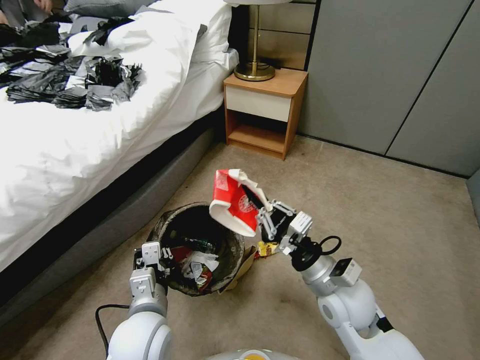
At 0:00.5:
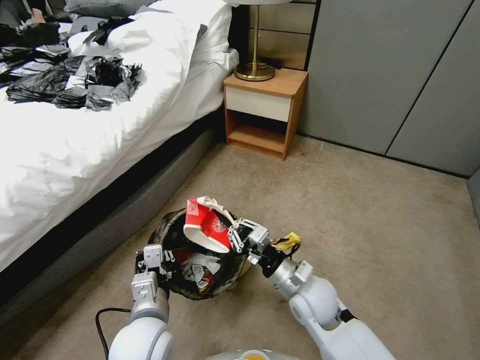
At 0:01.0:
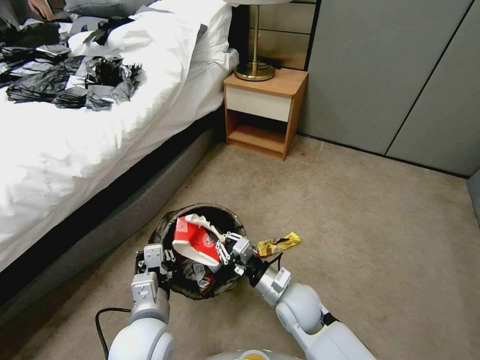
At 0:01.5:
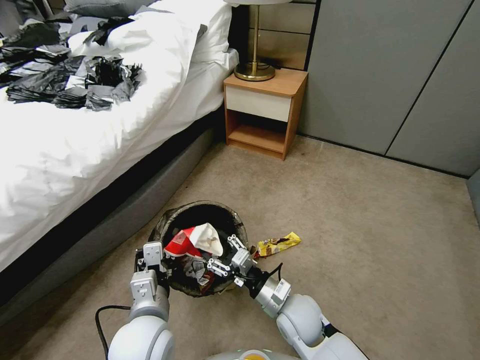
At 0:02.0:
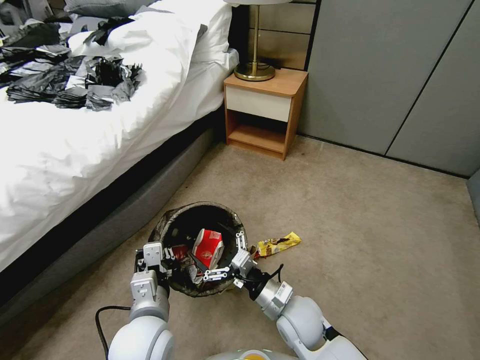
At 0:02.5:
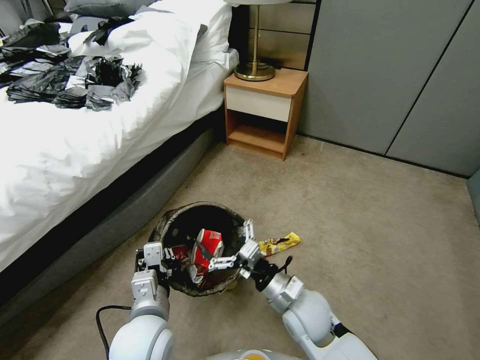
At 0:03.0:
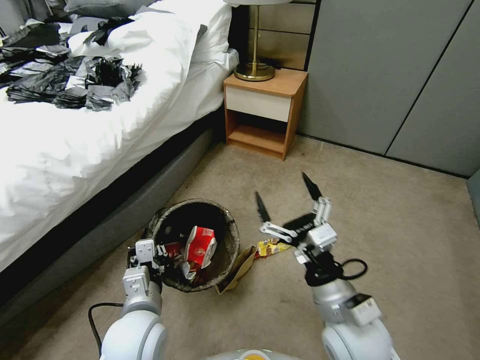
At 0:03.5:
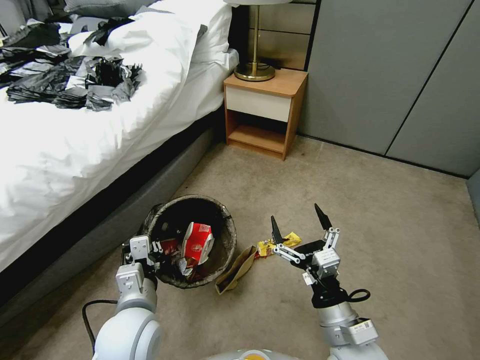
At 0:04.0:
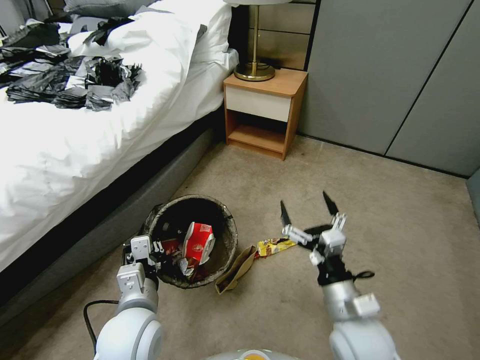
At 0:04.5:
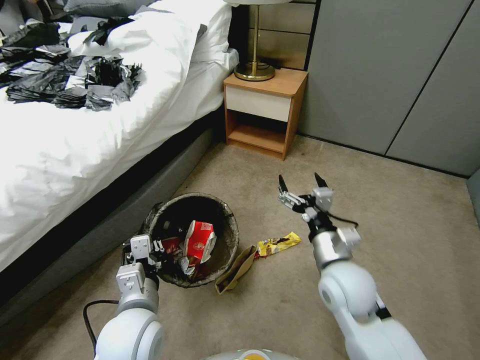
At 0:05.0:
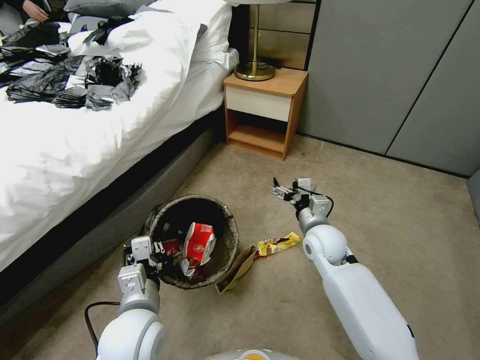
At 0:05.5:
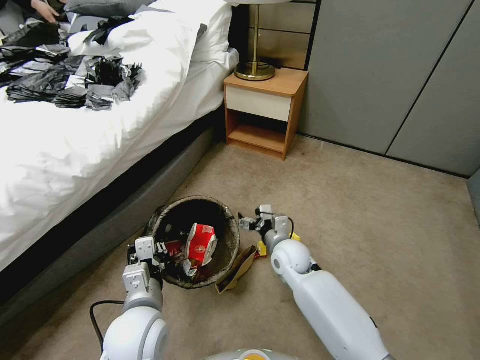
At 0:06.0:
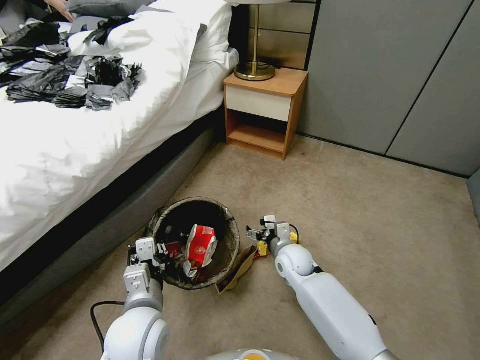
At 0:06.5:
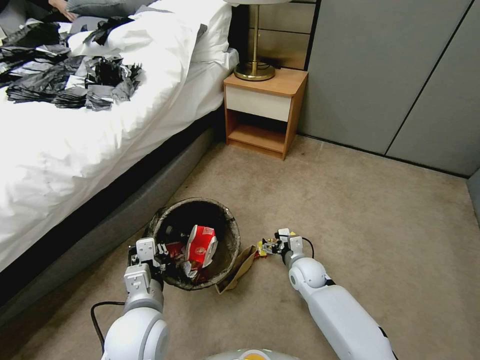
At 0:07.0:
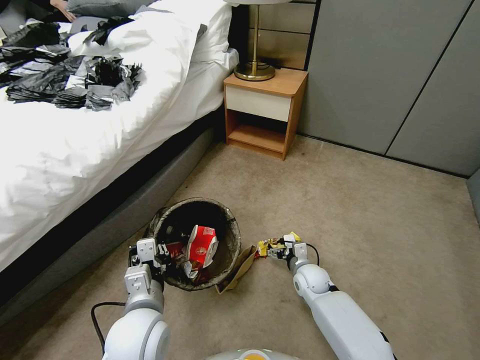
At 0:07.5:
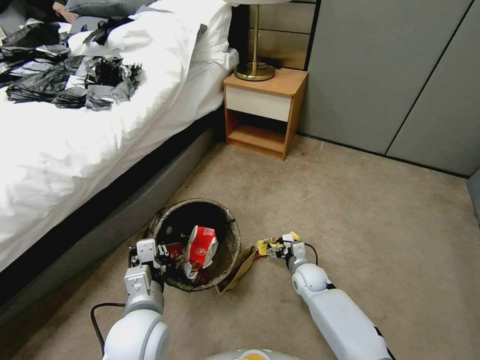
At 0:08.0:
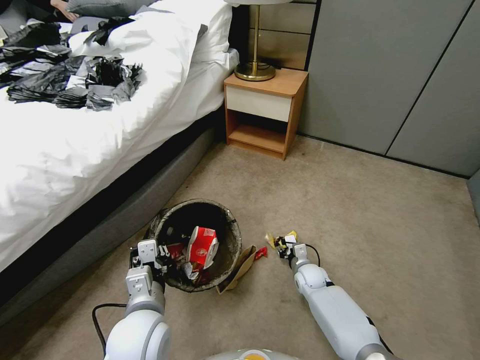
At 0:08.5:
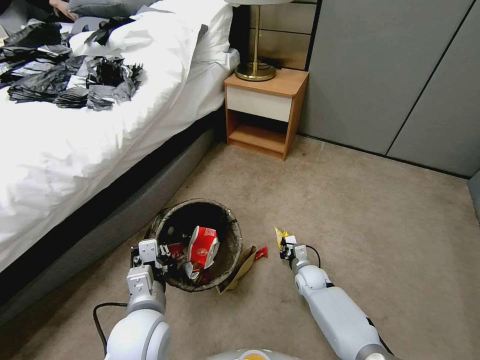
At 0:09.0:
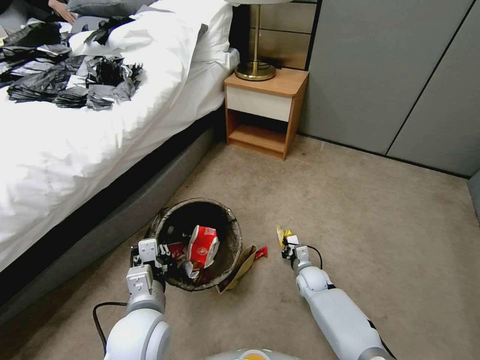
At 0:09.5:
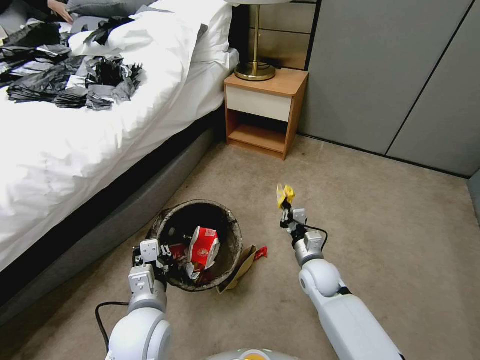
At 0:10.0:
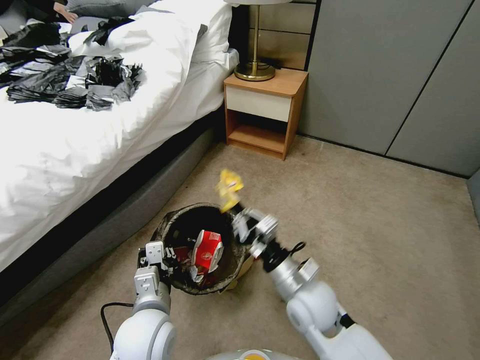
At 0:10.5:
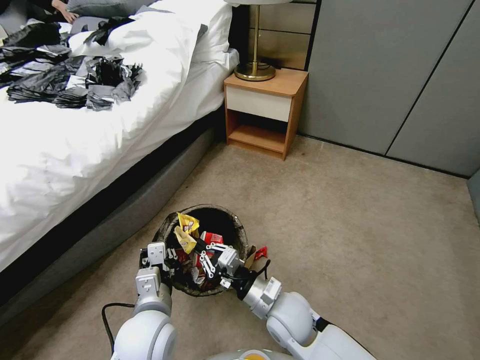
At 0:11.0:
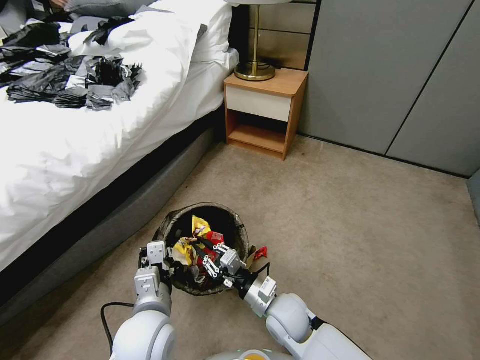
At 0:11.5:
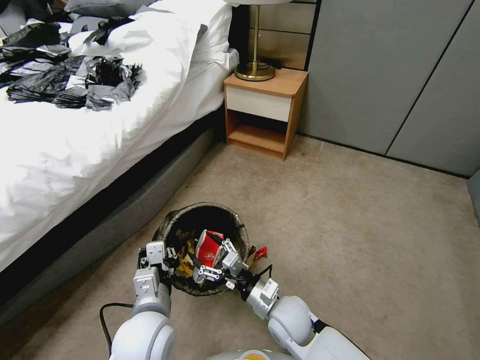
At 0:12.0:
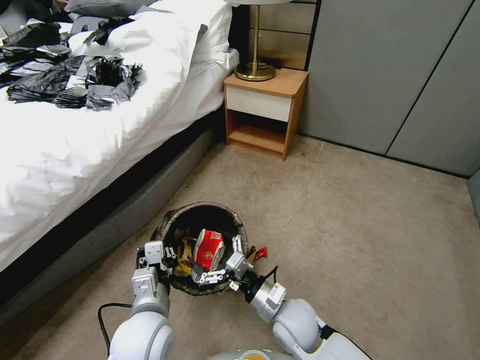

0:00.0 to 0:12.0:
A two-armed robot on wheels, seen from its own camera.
Task of the whole recording: Pick up the trash bin, then pick up the garbage from the floor and place it into the trash bin.
0:00.0 to 0:02.0: The right gripper is displaced downward and to the left by about 15 cm, and opens.
0:02.0 to 0:04.0: The right gripper travels upward, to the right and backward by about 15 cm.
0:04.0 to 0:06.0: The right gripper heads forward and downward, covering approximately 25 cm.
0:06.0 to 0:08.0: The right gripper travels downward and to the right by approximately 15 cm, and closes.
0:08.0 to 0:10.0: The right gripper moves upward and backward, roughly 25 cm, and closes up.
0:10.0 to 0:12.0: The right gripper is displaced downward by about 10 cm, and opens.

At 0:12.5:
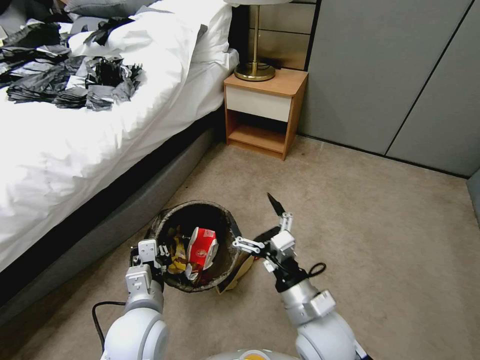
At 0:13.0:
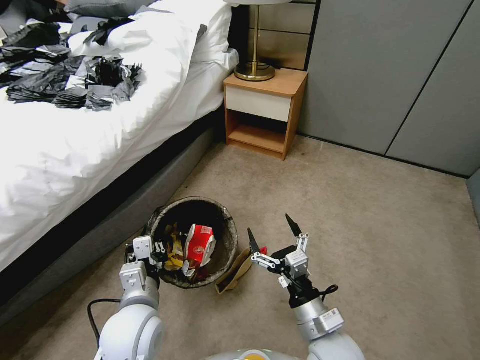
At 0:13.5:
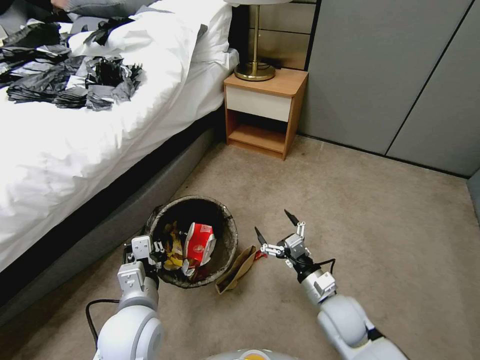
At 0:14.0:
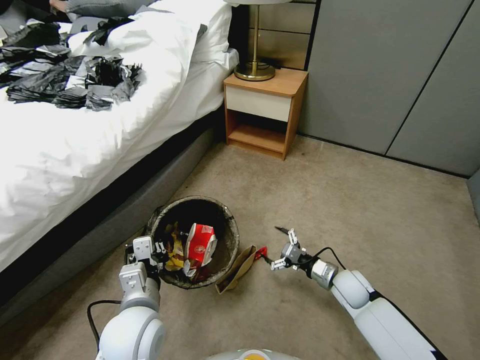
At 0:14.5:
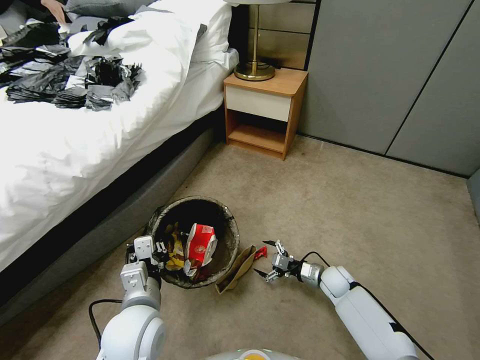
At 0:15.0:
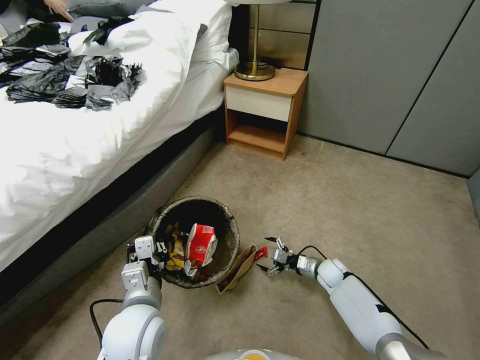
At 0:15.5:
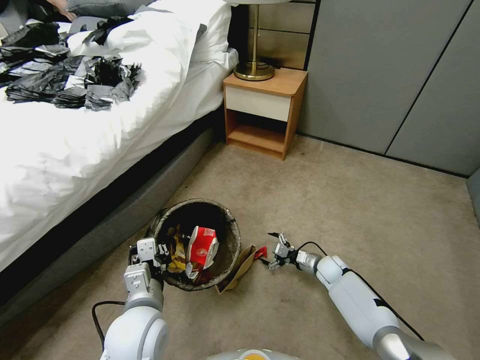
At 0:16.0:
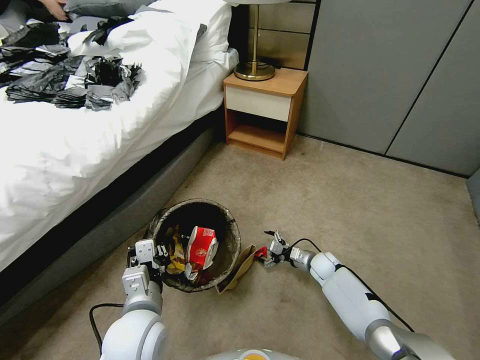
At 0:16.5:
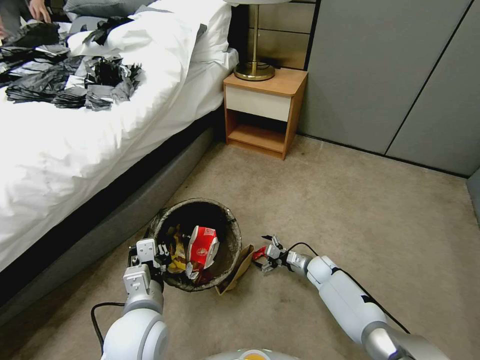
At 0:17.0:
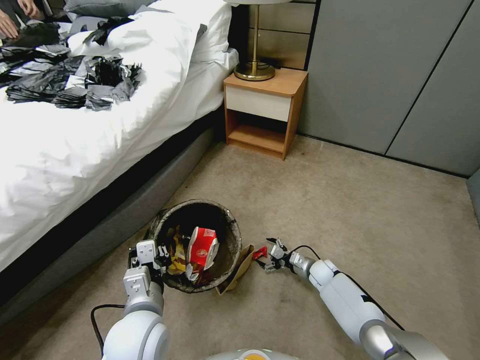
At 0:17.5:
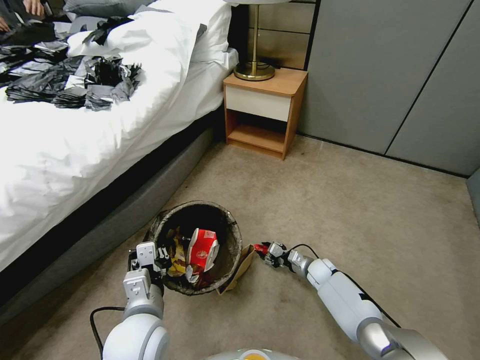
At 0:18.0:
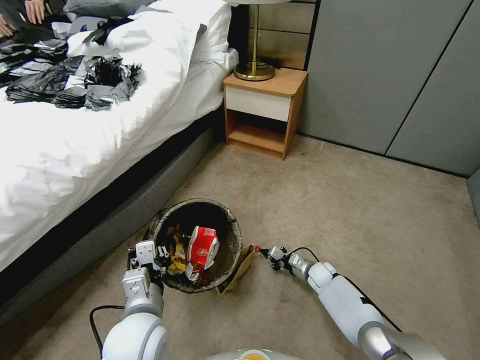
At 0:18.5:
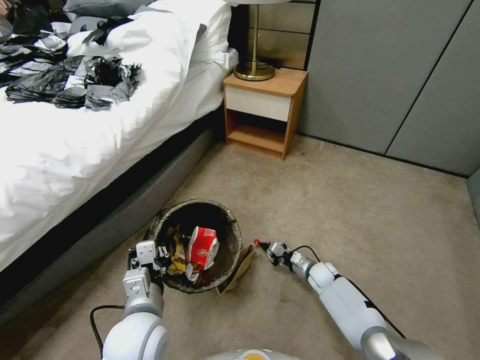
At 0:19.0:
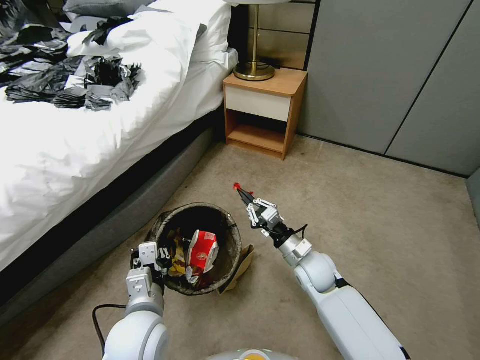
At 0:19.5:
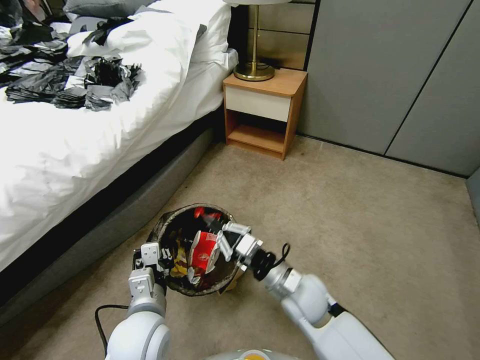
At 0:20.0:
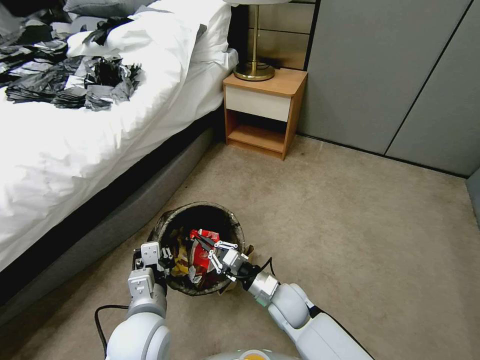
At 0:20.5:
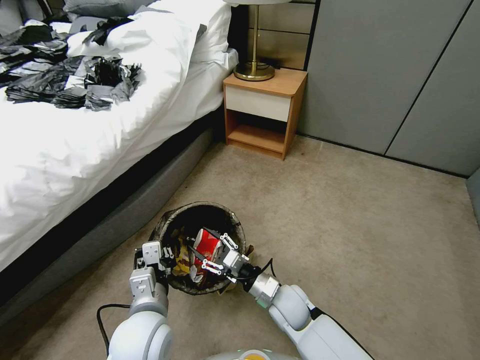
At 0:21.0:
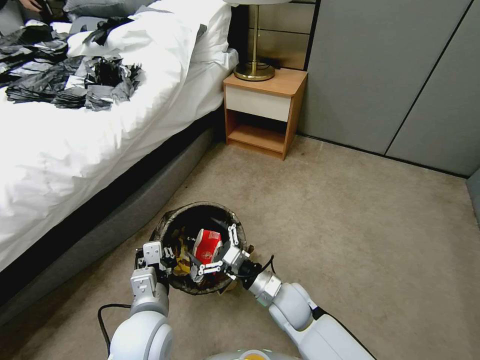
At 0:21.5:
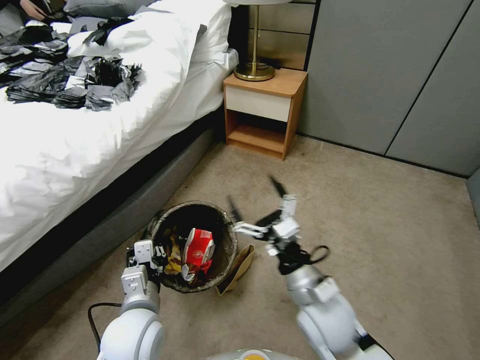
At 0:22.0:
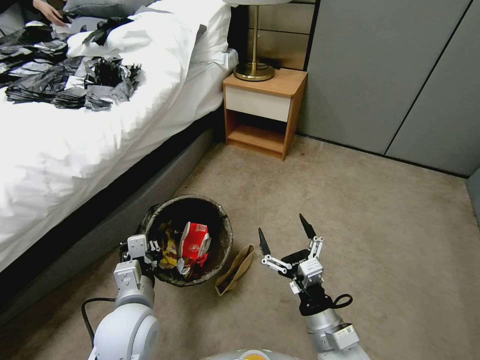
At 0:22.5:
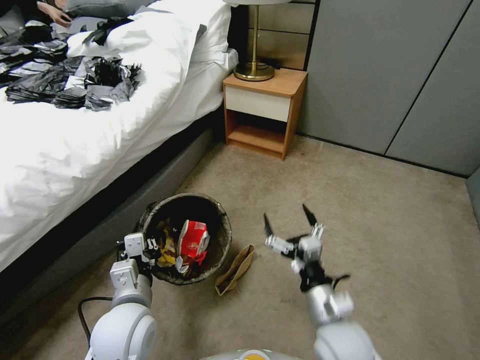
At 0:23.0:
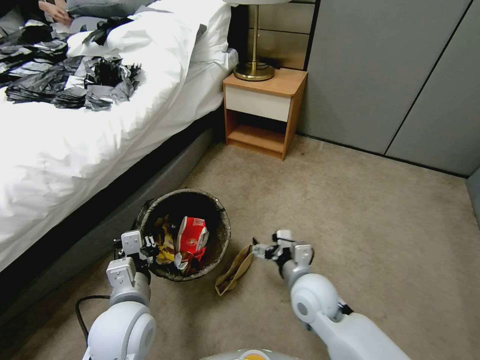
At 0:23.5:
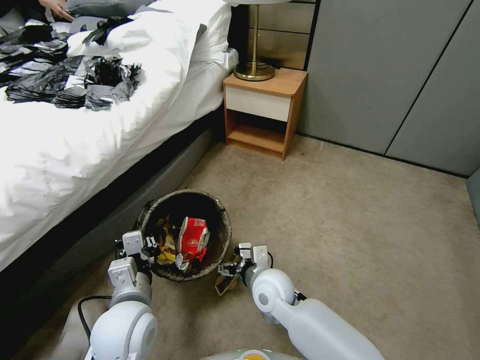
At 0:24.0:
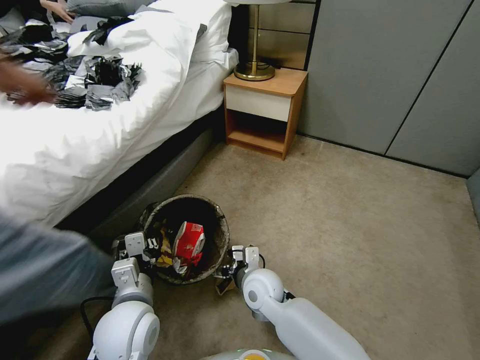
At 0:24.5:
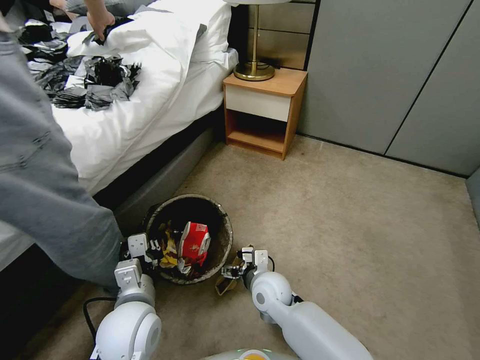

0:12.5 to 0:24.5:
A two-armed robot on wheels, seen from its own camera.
Task of the whole recording: Pick up the trash bin, then pick up the garbage from the floor and place it into the trash bin.
0:12.5 to 0:14.5: The right gripper travels downward, forward and to the right by some 30 cm.
0:14.5 to 0:16.5: The right gripper ends up about 5 cm from where it was.
0:16.5 to 0:18.5: The right gripper closes its fingers.
0:18.5 to 0:20.5: The right gripper is displaced to the left, upward and backward by roughly 25 cm, and opens up.
0:20.5 to 0:22.5: The right gripper moves backward, upward and to the right, approximately 15 cm, and opens its fingers.
0:22.5 to 0:24.5: The right gripper travels forward, to the left and downward by roughly 20 cm.

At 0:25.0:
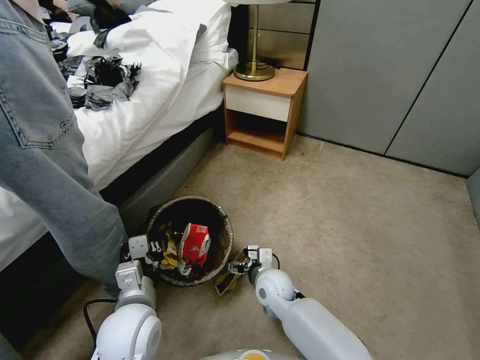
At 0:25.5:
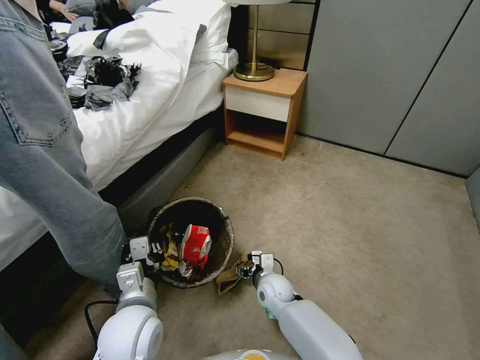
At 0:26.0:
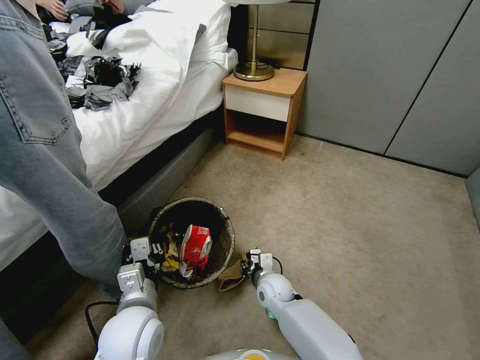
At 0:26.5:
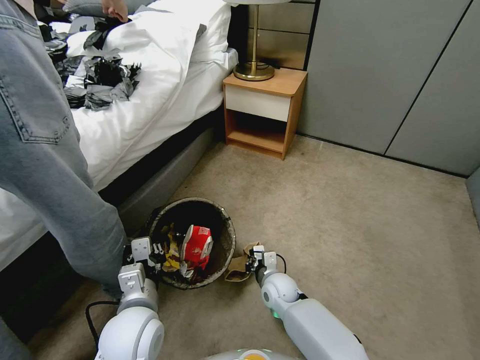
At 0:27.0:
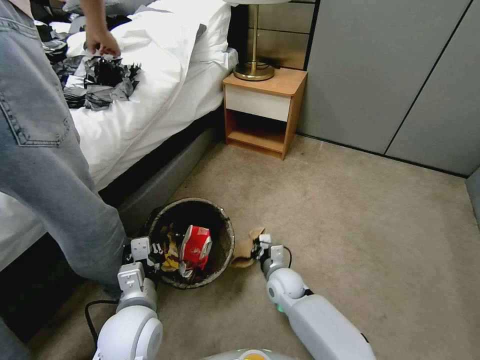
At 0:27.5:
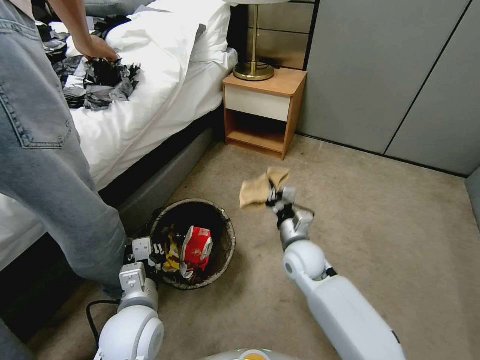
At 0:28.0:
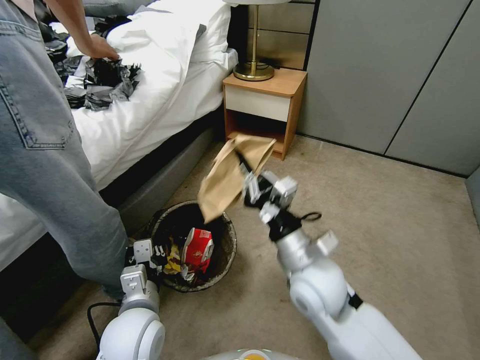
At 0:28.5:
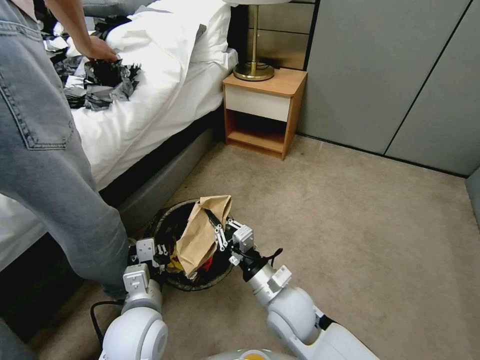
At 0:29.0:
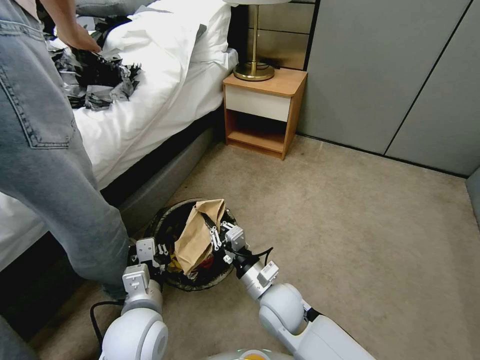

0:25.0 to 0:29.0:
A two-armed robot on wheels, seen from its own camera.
Task of the whole recording: Pick up the trash bin, then pick up the garbage from the floor and place it into the trash bin.
0:25.0 to 0:27.0: The right gripper moves approximately 5 cm, and closes.
0:27.0 to 0:29.0: The right gripper is displaced upward and backward by roughly 15 cm.
